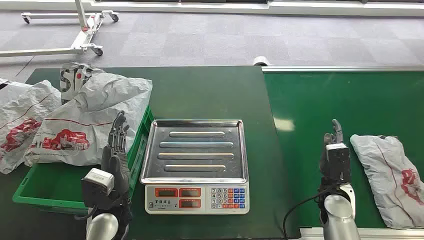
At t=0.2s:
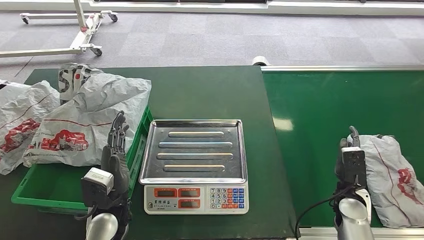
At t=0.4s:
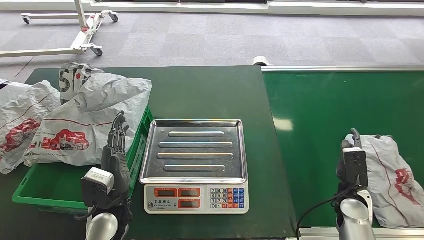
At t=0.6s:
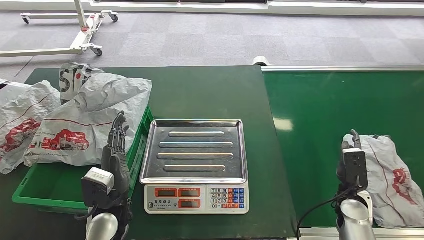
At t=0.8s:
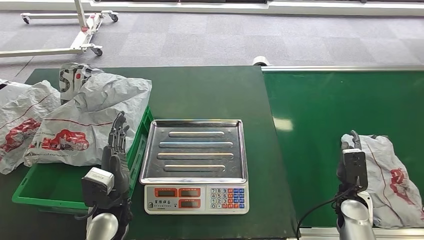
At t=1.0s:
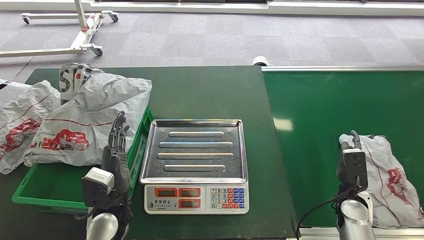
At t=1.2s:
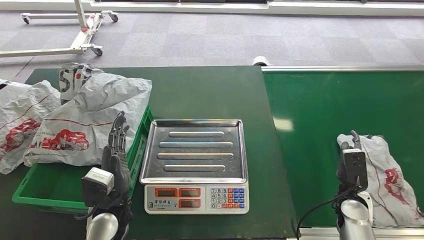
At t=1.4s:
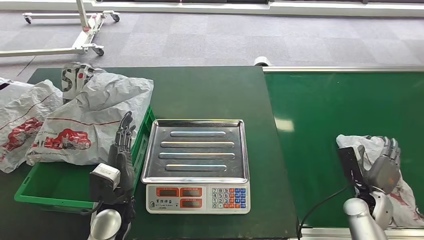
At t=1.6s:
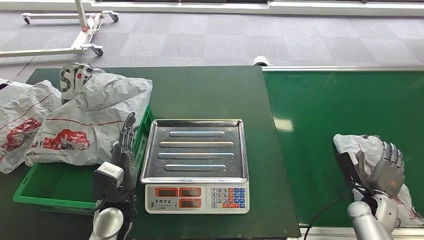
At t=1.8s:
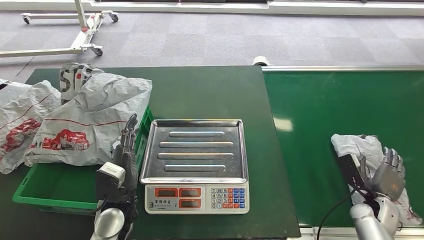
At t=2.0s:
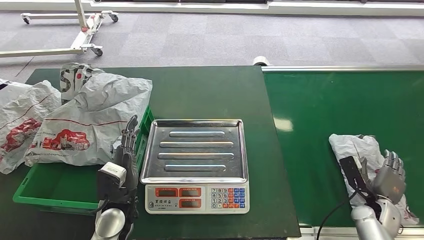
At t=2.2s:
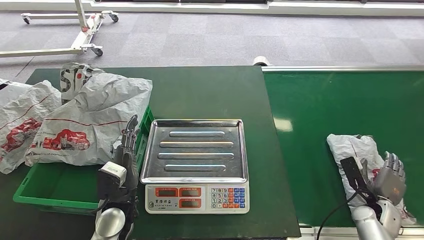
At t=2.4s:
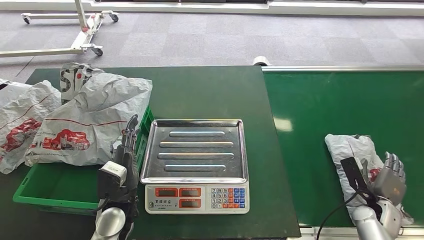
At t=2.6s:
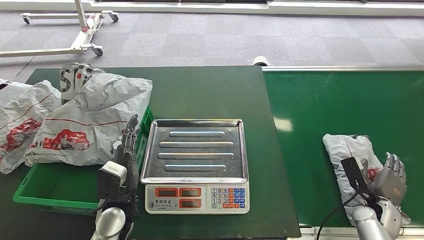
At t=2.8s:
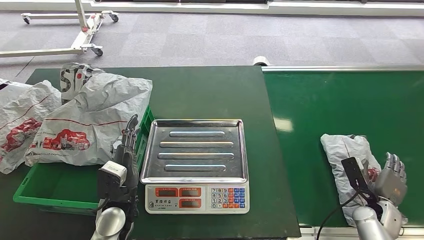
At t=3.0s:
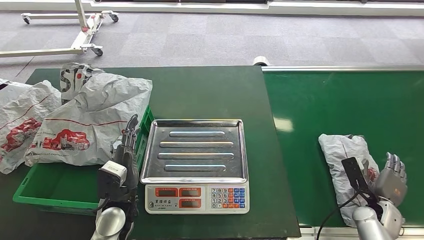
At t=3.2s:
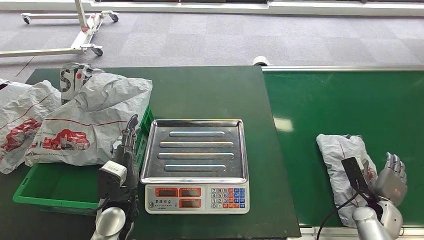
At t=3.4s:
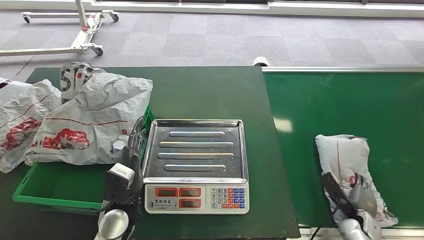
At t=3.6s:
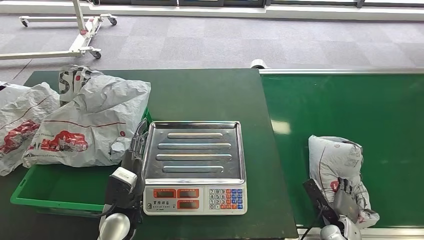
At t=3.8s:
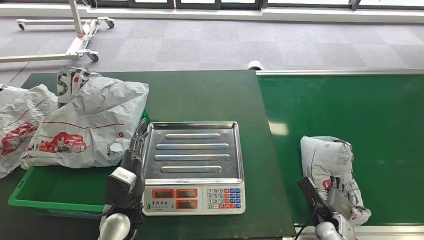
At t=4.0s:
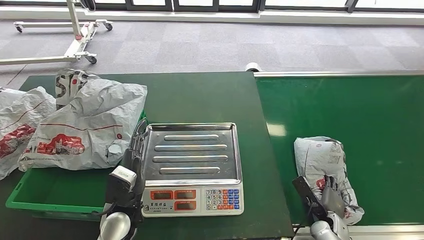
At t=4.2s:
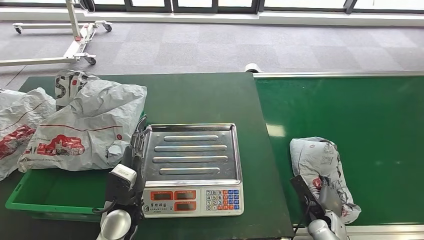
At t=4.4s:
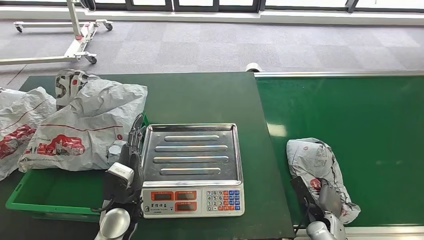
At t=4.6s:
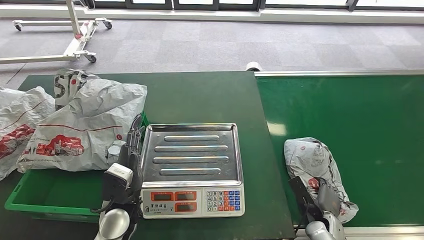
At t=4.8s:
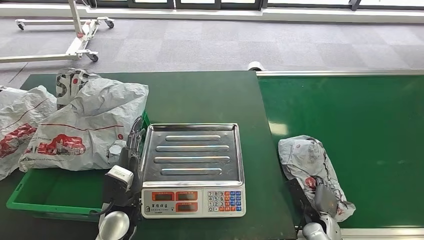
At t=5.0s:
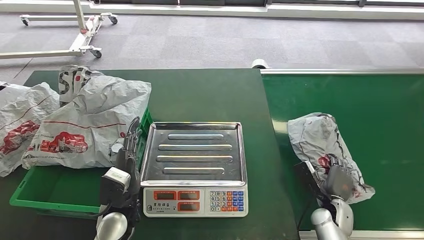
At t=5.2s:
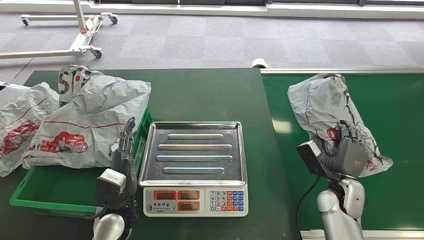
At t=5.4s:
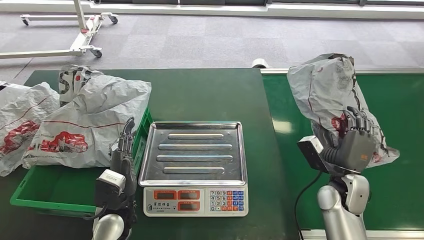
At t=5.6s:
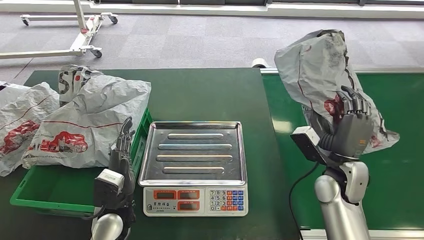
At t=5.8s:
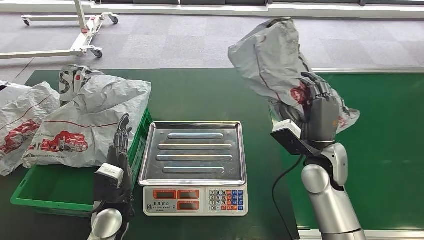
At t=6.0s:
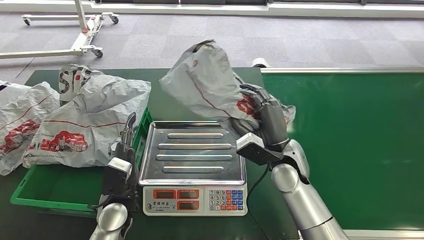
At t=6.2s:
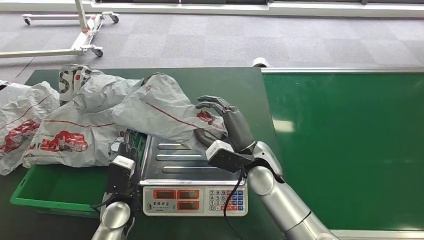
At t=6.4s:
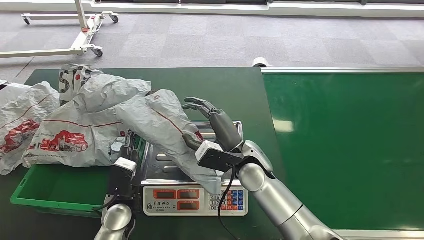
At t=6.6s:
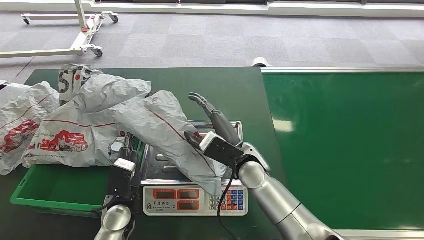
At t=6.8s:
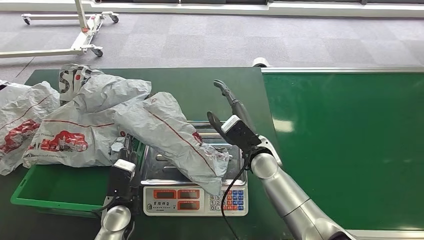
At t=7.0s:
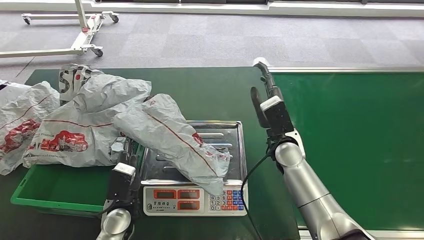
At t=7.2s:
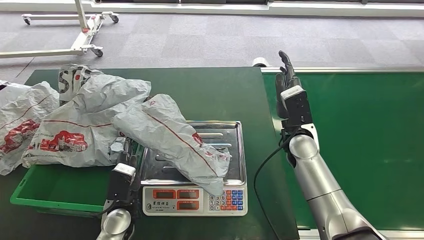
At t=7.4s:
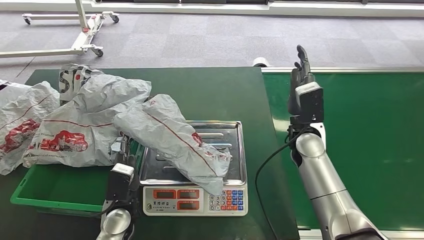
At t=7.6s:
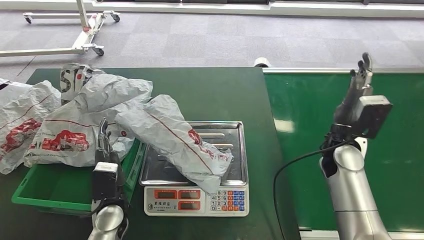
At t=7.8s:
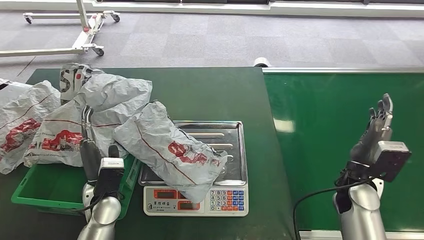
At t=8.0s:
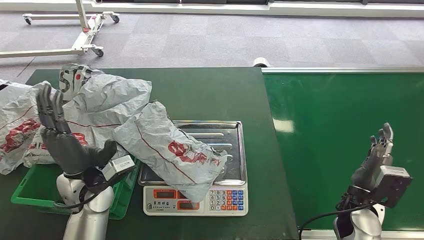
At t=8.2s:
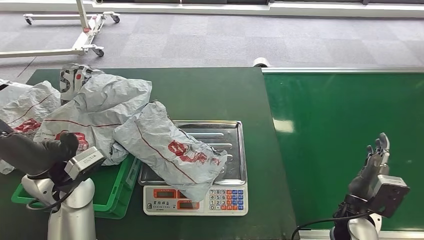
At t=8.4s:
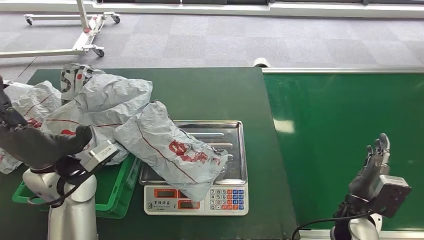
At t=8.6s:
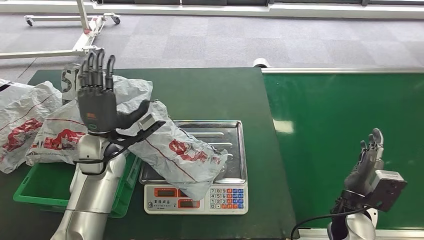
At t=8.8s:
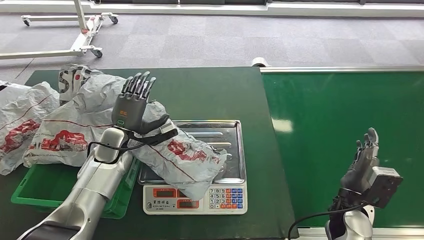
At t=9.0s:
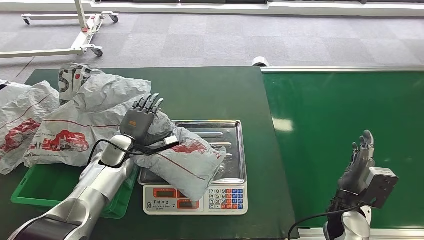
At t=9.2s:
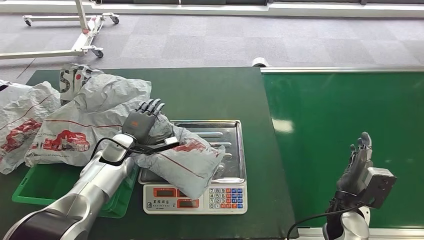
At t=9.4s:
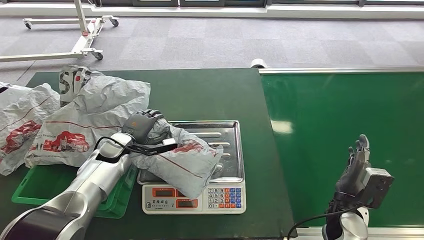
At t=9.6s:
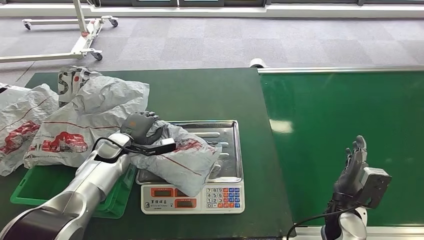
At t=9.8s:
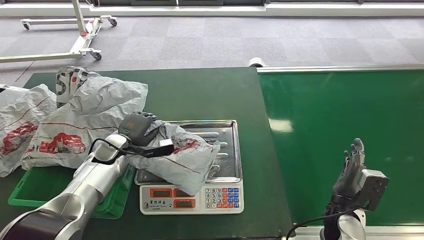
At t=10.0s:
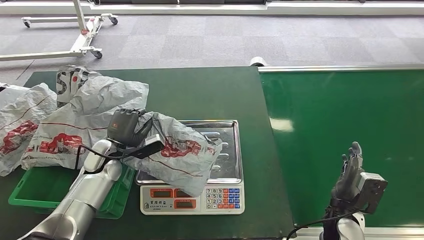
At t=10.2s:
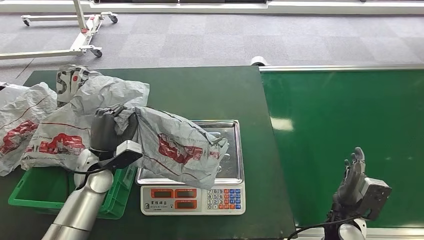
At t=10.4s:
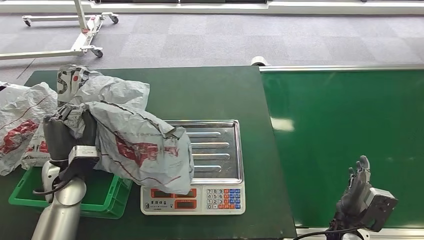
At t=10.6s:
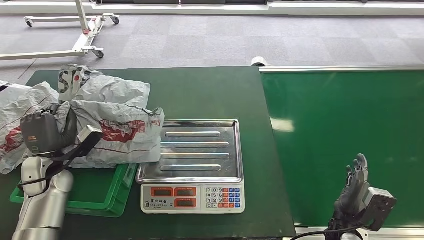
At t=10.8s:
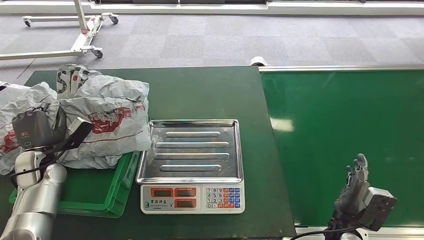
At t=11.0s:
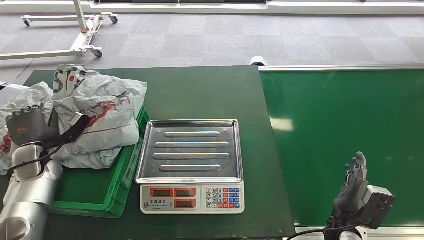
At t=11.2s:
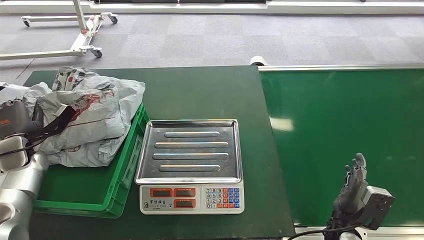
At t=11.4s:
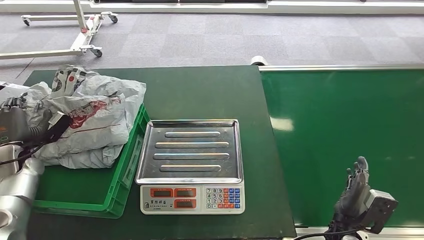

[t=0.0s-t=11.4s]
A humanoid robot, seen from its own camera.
Step, t=0.0s to t=5.6s: Pick up the package from the conveyor belt.
Step, t=5.8s to t=6.4s: Place the package onto the inbound machine.
Step, t=6.6s to t=10.2s: Pick up the package from the inbound machine.
Step, t=10.4s to t=11.4s: Place the package into the parcel locker.
t=1.4s to t=2.8s: The right hand changes place by approximately 5 cm.
